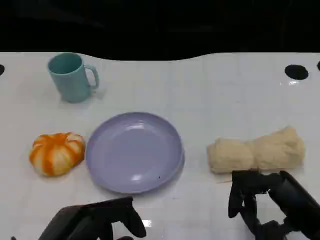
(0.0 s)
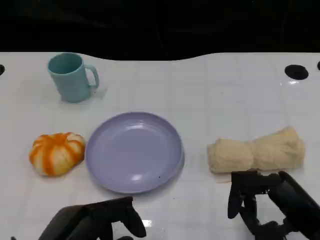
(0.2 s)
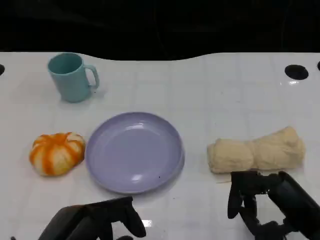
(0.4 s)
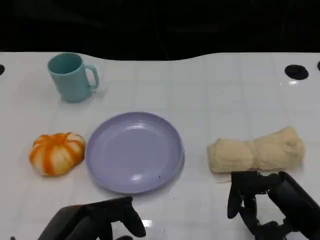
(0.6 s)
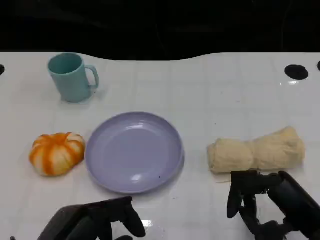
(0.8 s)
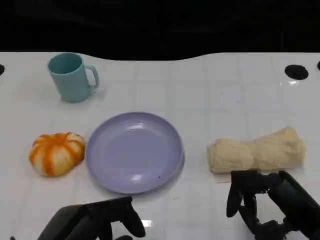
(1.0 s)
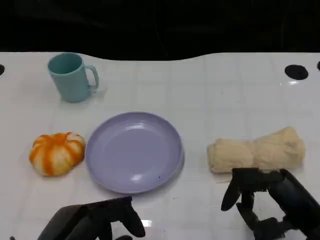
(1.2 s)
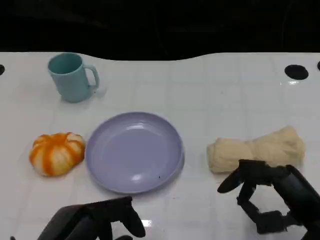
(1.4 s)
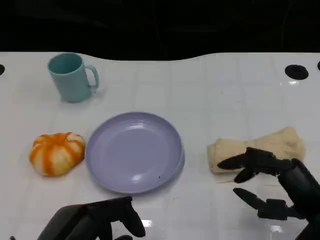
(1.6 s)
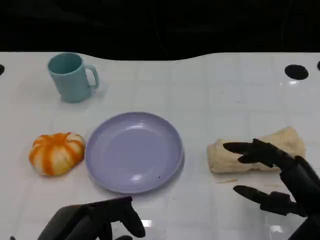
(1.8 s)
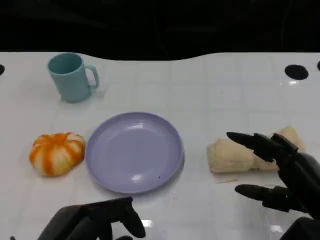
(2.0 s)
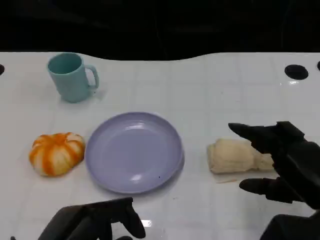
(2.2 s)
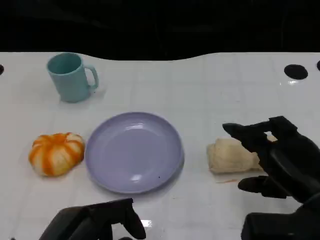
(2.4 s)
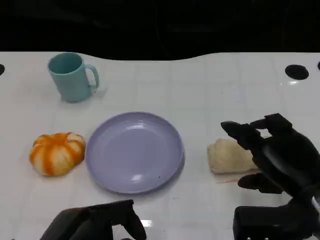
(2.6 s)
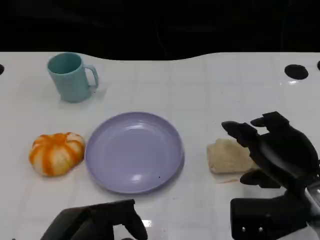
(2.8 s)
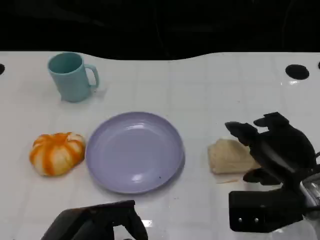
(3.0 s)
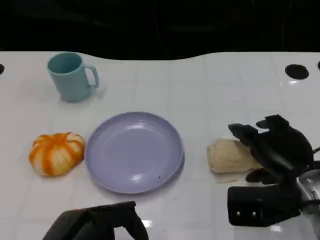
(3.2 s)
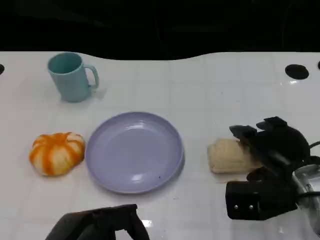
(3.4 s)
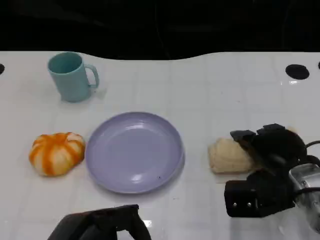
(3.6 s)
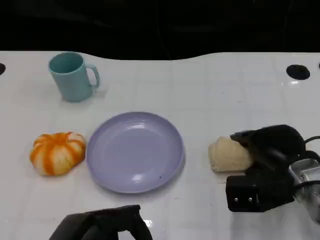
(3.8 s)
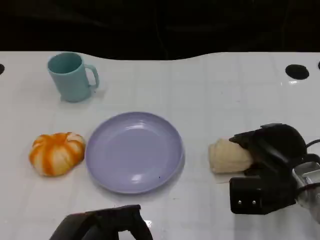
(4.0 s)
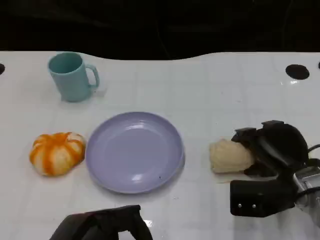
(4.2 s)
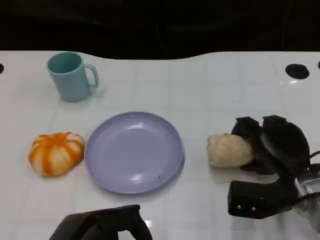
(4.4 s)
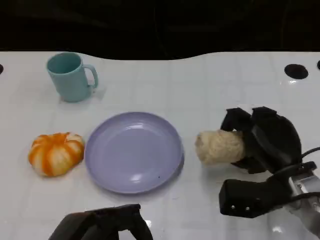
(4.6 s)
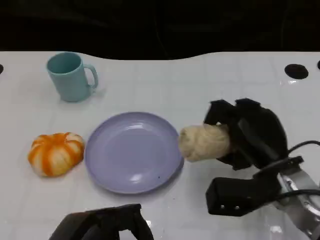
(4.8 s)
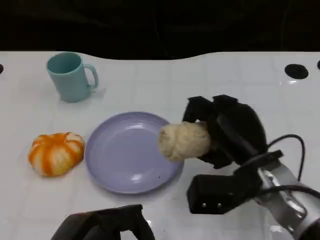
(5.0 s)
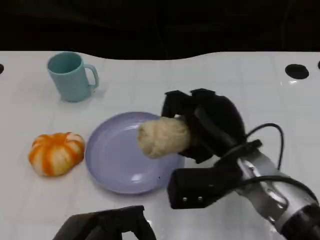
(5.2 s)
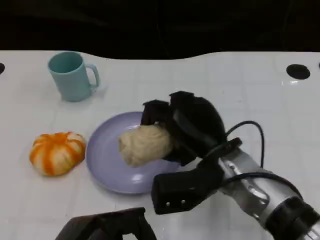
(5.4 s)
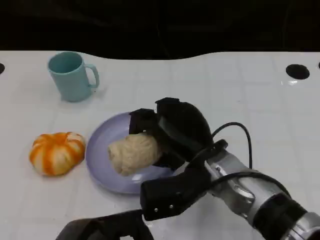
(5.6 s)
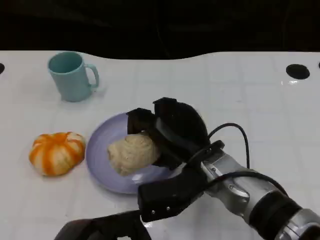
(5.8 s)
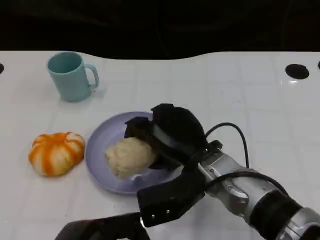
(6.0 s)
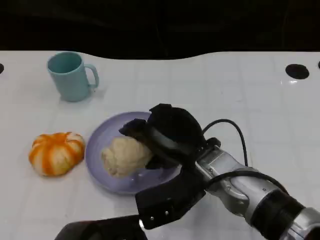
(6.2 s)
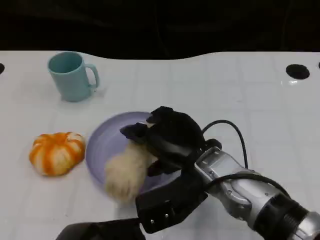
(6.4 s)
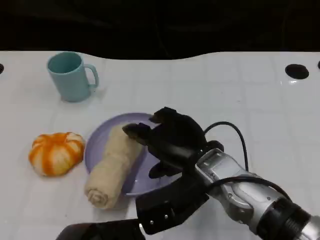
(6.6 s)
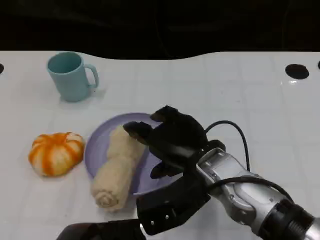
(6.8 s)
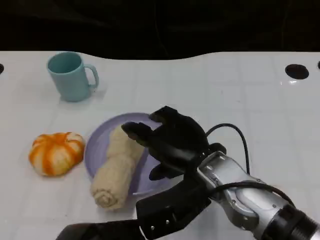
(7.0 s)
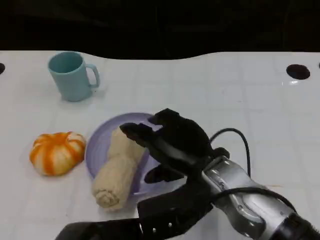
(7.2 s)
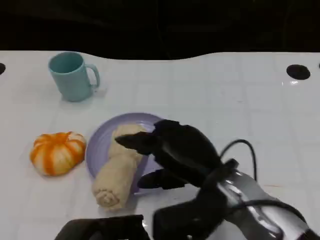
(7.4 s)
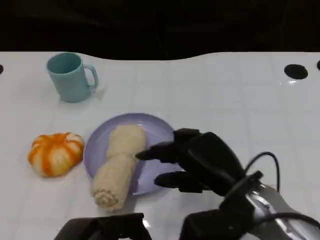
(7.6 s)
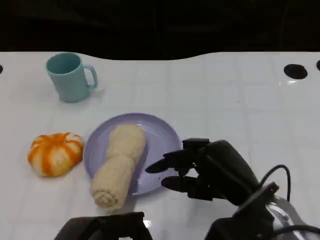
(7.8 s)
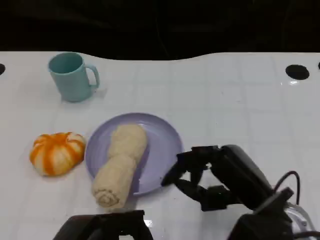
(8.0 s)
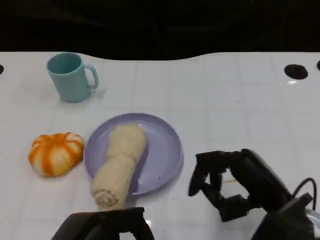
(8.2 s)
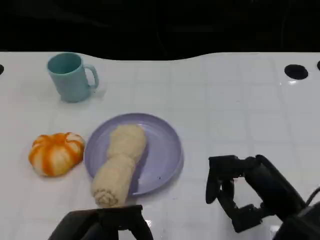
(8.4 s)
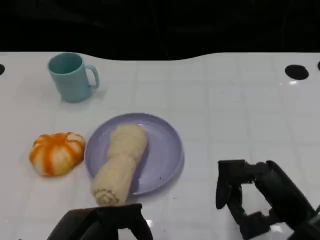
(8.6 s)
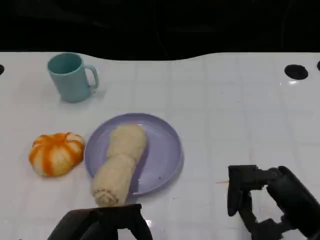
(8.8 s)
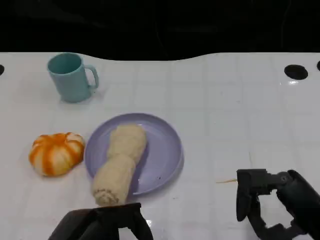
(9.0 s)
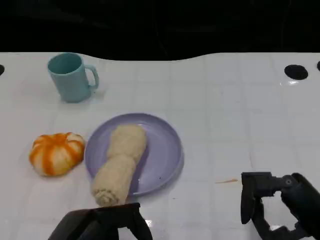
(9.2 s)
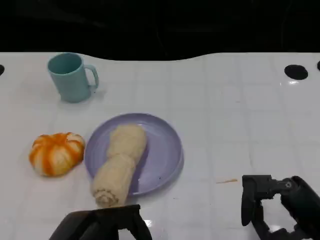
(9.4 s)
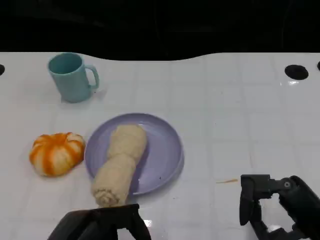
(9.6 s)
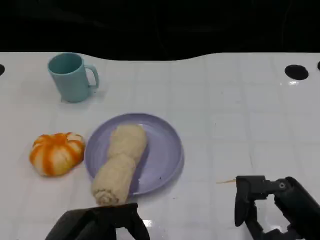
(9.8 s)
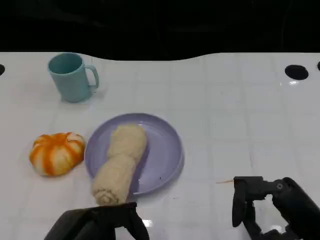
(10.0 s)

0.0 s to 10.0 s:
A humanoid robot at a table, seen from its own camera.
Task of the whole recording: Grasp the towel on the left side of the plate with the left hand and place it into the plate.
0.0 to 1.4 s: The hands make only small movements.
1.4 to 2.8 s: The right hand shifts about 5 cm forward.
2.8 to 4.2 s: The right hand travels downward by some 5 cm.
4.2 to 5.8 s: The right hand moves to the left, some 15 cm.
7.2 to 8.6 s: The right hand moves to the right and backward, roughly 15 cm.
8.6 to 10.0 s: The hands move only a little.

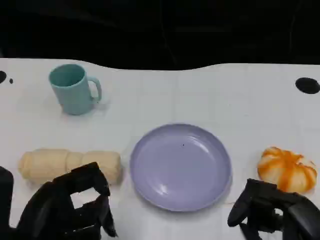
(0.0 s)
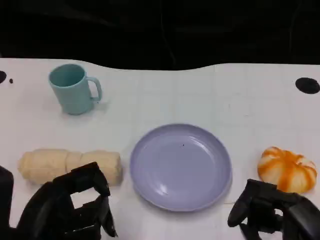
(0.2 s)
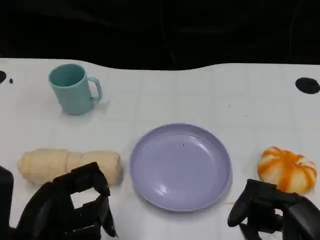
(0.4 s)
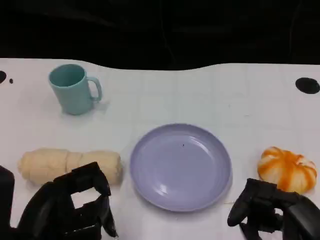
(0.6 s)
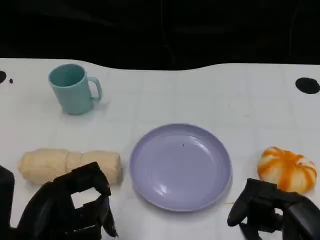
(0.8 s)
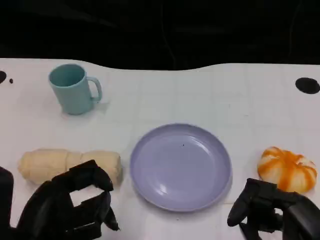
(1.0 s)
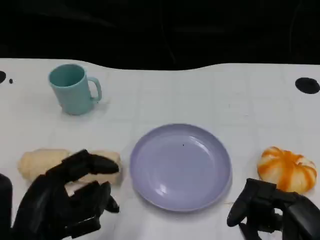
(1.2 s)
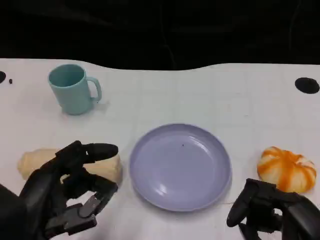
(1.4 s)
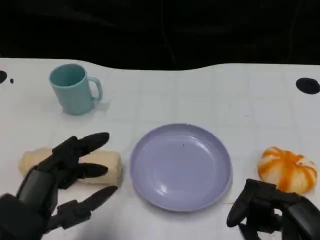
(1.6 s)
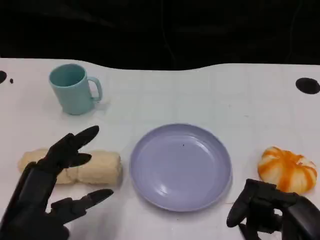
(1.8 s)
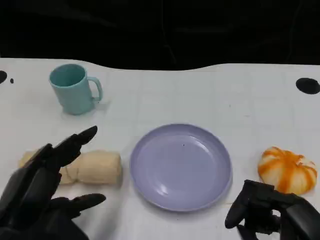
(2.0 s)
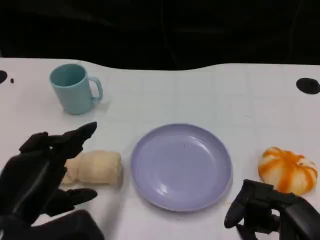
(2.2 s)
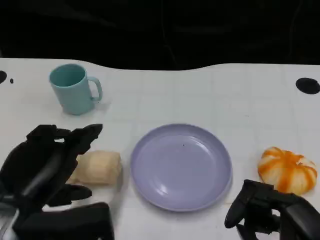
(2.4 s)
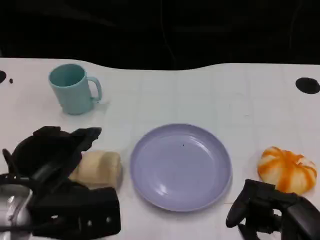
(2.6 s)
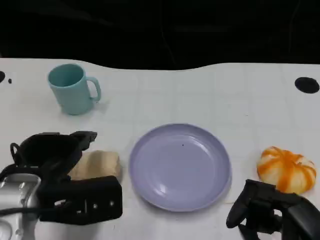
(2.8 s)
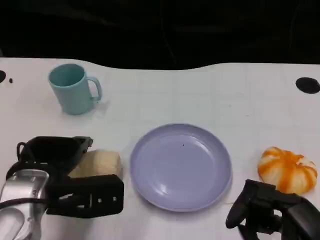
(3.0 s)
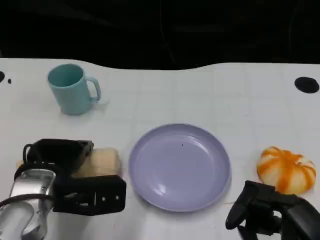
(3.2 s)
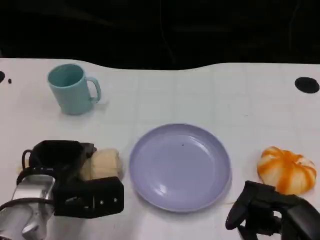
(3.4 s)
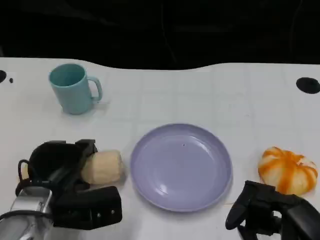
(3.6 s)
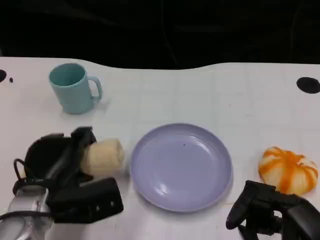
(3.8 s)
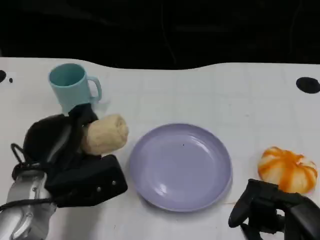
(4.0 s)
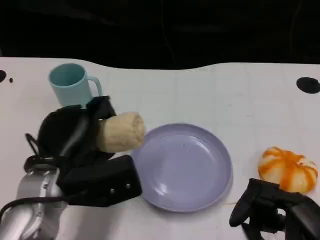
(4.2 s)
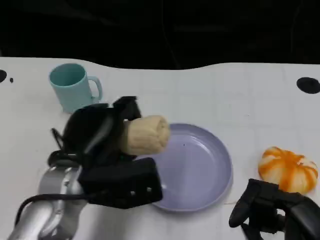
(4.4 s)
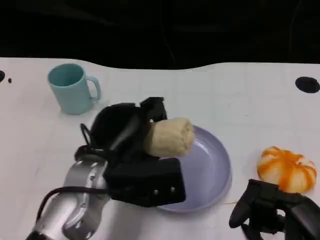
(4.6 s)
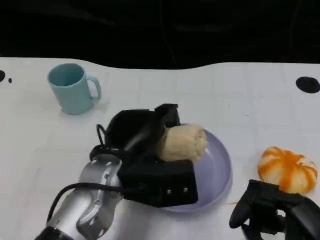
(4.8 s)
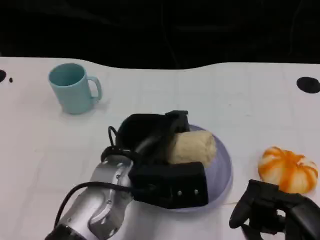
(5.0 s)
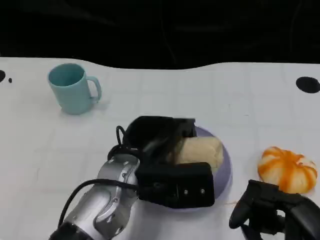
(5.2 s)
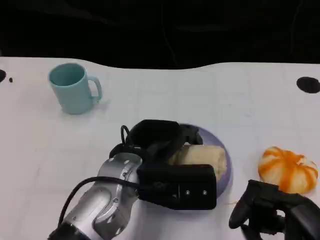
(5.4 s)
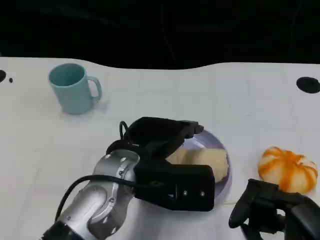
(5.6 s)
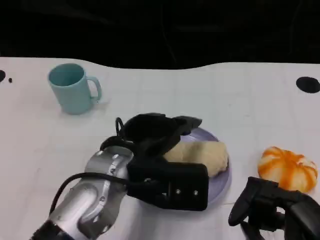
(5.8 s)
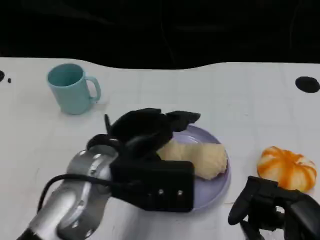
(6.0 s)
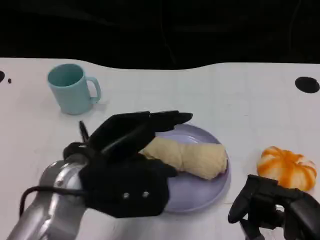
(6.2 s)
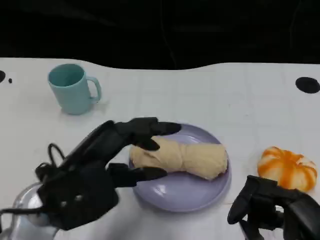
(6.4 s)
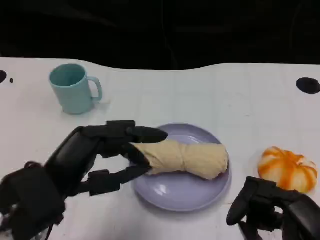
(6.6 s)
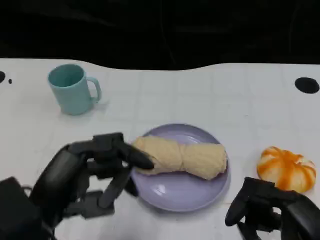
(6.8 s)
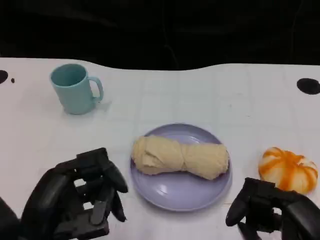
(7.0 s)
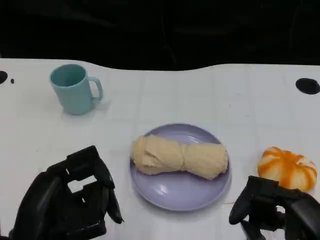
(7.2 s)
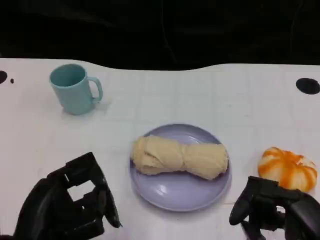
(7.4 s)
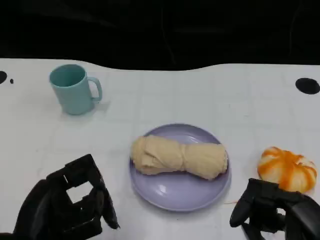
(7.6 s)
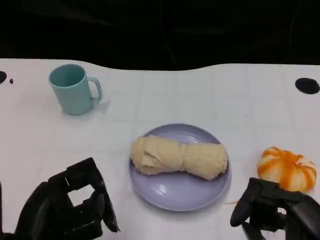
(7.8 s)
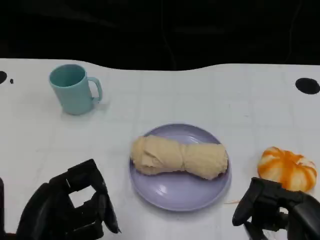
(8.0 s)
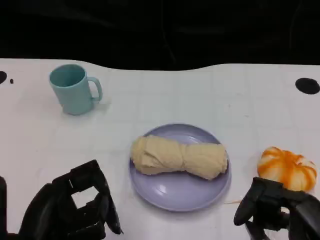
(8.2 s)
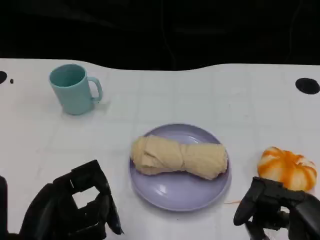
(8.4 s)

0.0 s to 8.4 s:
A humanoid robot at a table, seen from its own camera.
Task of the whole recording: Grasp the towel on the left side of the plate with the left hand and place it into the plate.
1.4 to 2.8 s: The left hand is displaced forward by some 10 cm.
4.2 to 5.6 s: The left hand moves to the right, about 10 cm.
5.6 to 7.0 s: The left hand is displaced to the left and backward by approximately 15 cm.
